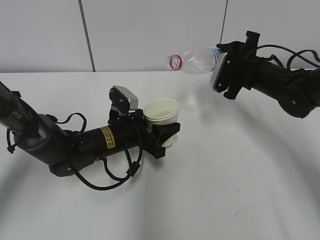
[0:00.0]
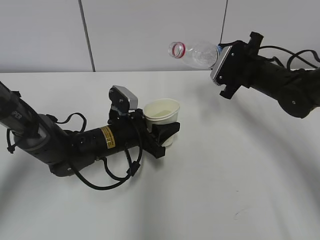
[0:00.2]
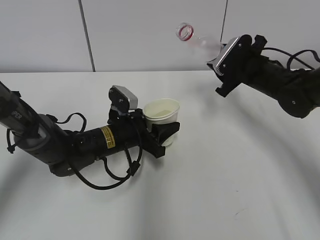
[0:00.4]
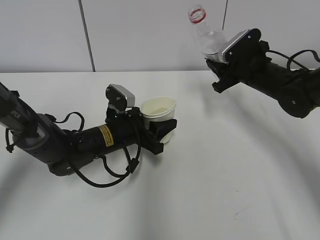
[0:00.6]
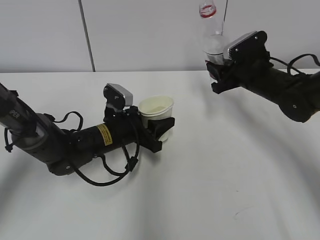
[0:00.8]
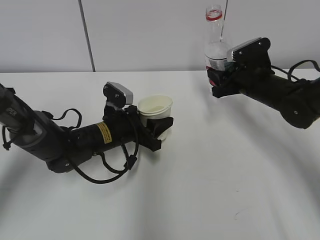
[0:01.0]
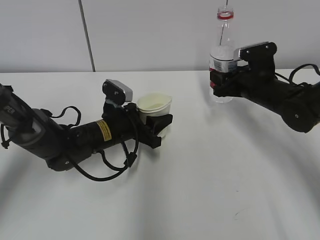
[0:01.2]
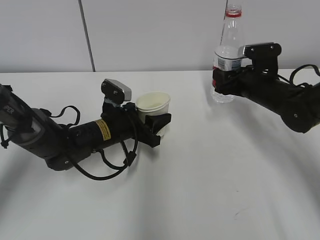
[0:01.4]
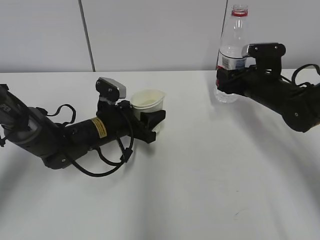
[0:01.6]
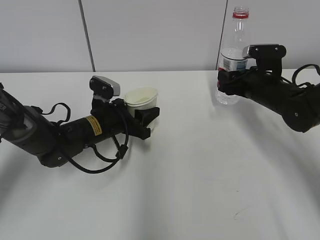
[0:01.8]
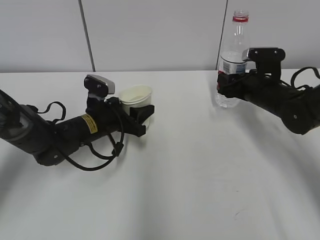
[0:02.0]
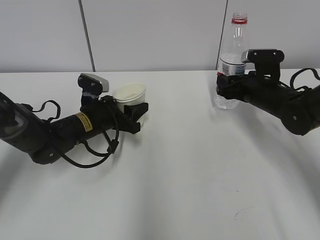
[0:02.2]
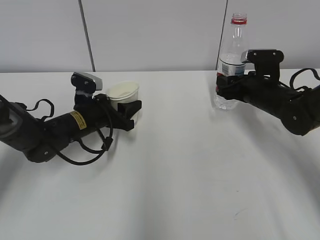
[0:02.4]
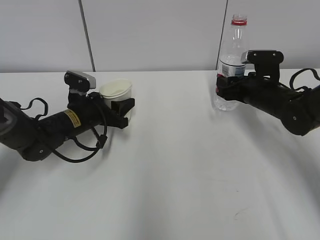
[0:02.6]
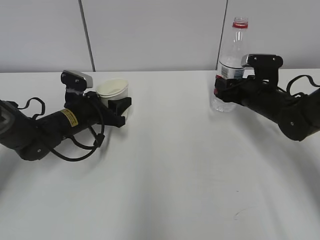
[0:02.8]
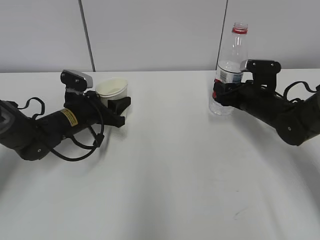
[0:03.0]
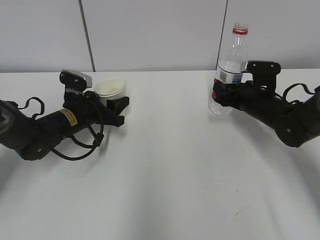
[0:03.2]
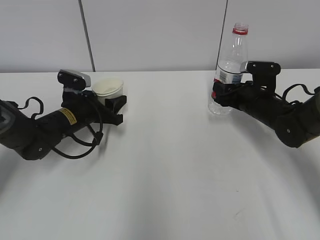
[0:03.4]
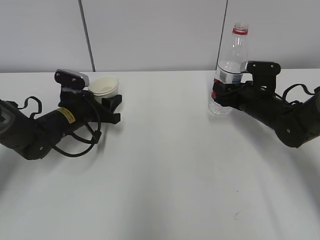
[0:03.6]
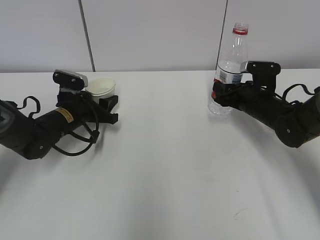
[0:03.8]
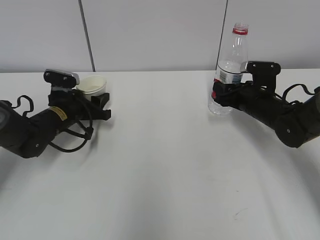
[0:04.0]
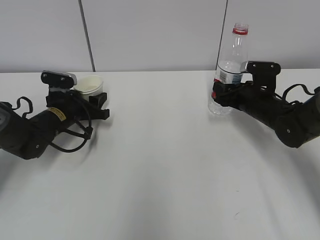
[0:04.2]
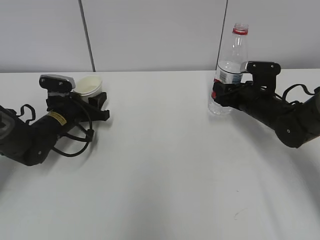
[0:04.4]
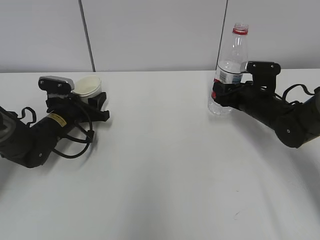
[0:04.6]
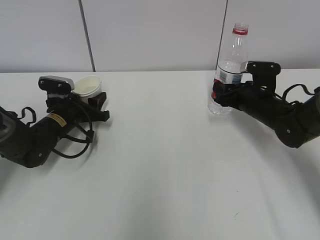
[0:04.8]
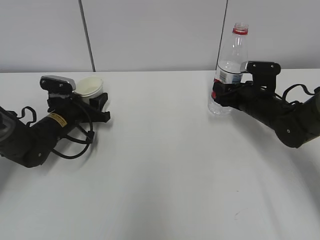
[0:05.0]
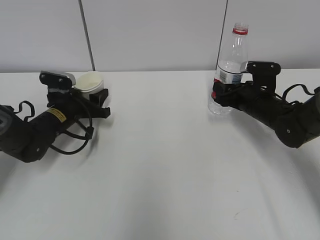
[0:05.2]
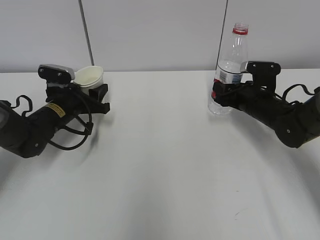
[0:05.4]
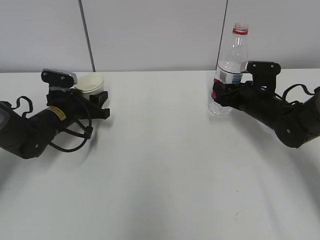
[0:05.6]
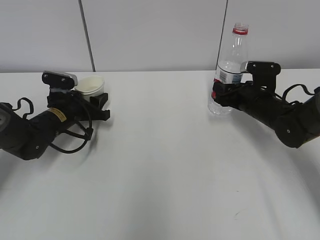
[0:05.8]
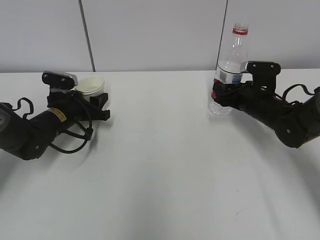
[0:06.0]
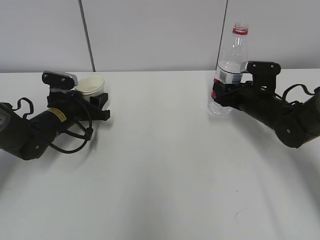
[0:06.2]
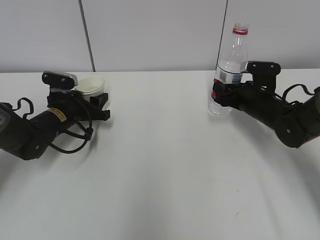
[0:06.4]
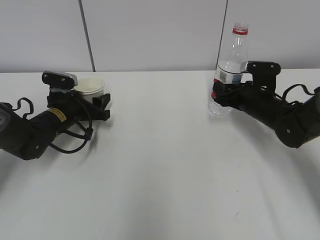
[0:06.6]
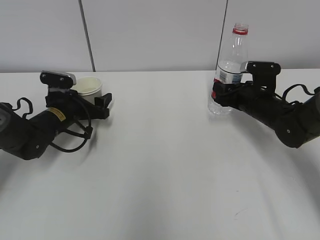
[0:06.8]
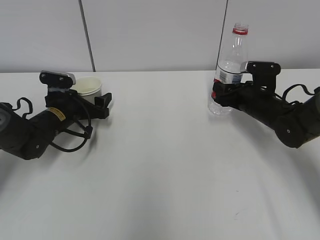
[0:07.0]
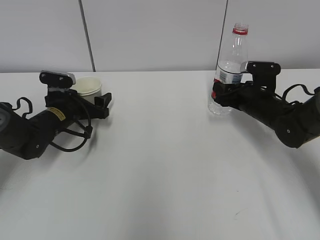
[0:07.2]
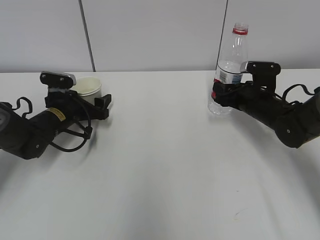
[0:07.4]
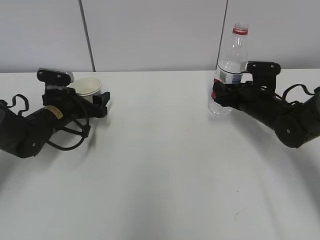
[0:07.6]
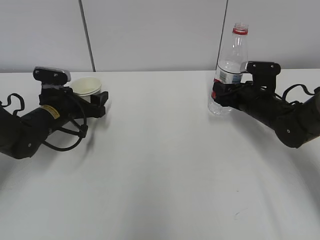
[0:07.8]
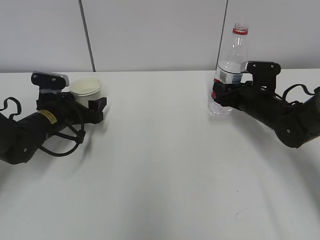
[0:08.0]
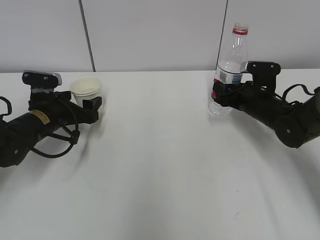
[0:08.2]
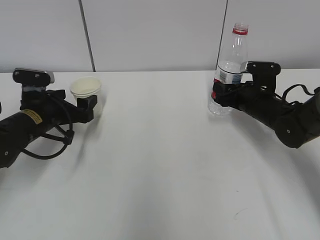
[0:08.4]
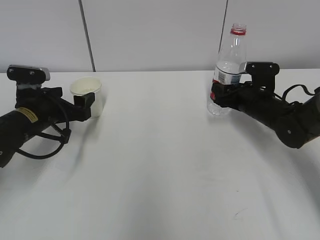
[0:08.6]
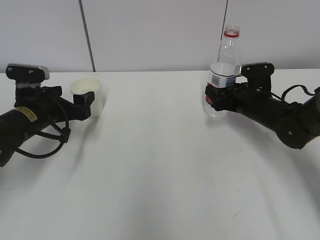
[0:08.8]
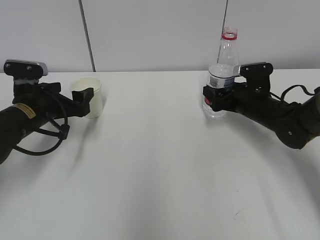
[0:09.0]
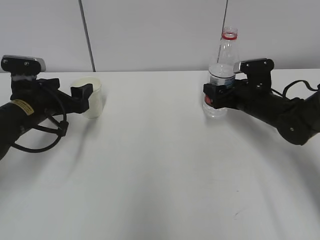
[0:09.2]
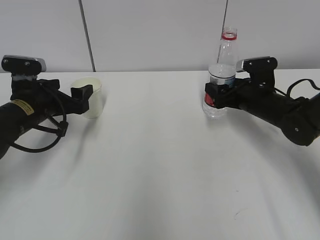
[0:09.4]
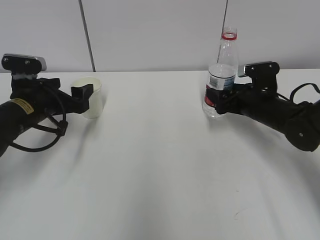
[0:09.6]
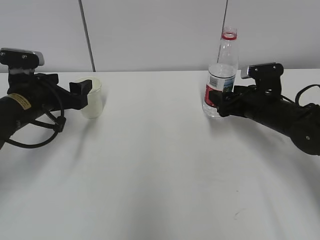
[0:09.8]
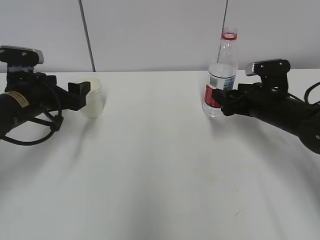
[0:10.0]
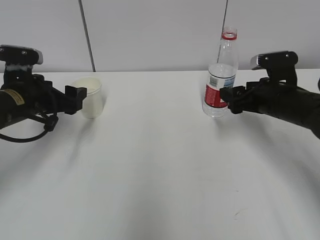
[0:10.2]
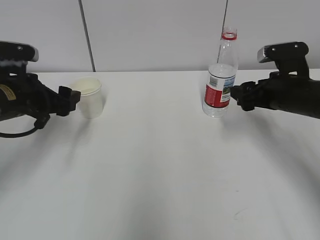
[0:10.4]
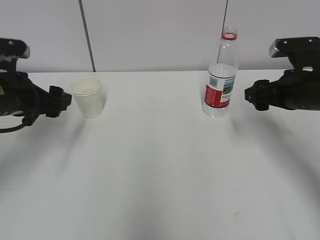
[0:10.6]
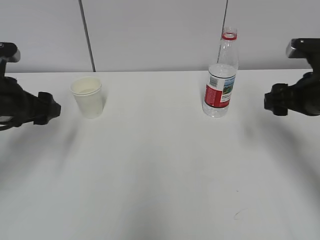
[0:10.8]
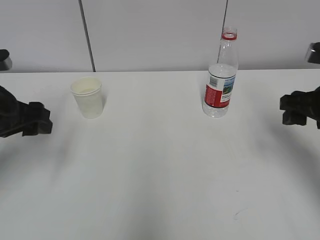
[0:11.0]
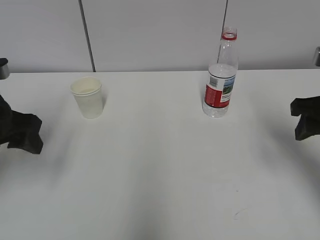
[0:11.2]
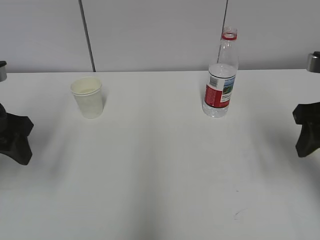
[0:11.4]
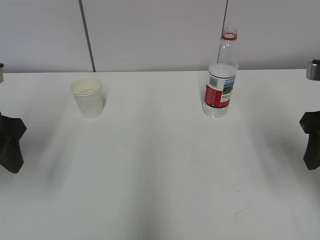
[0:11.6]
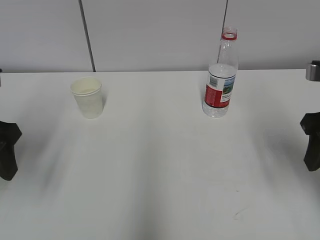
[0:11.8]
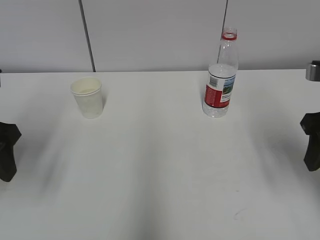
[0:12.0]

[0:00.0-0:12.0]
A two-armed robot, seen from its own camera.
Step, 0:00.0 to 0:02.8: Place the paper cup with the left hand.
0:01.6 to 0:03.0: The left gripper heads to the left, covering some 5 cm.
0:03.0 to 0:06.0: There are only small adjustments of the grippers.
0:06.0 to 0:07.6: The left gripper opens up.
0:07.6 to 0:09.0: The left gripper goes approximately 5 cm backward. Meanwhile the right gripper opens.
0:09.0 to 0:10.4: The right gripper goes about 10 cm upward and backward. Meanwhile the left gripper moves approximately 5 cm.
0:10.4 to 0:12.0: Both grippers move backward and upward, about 15 cm. The right gripper closes up.

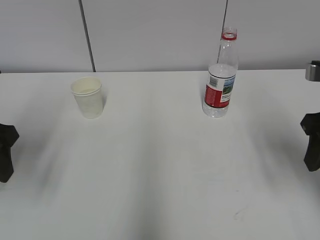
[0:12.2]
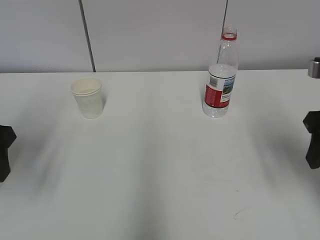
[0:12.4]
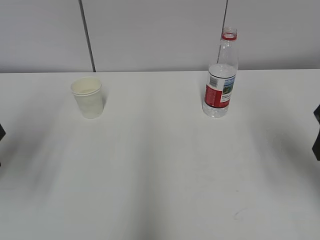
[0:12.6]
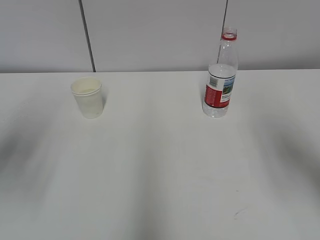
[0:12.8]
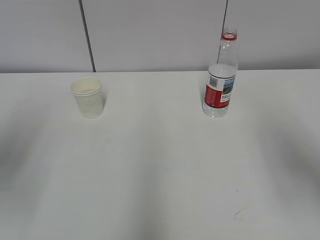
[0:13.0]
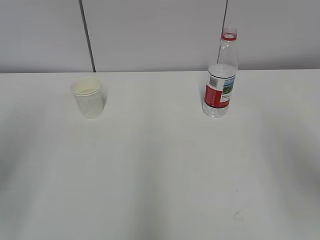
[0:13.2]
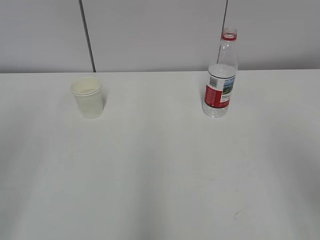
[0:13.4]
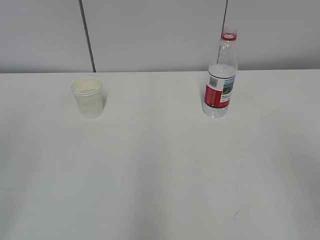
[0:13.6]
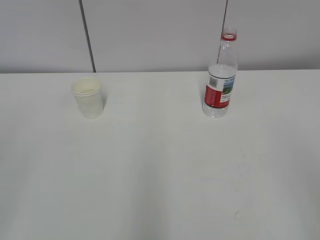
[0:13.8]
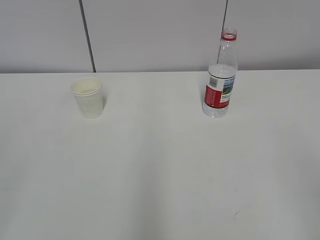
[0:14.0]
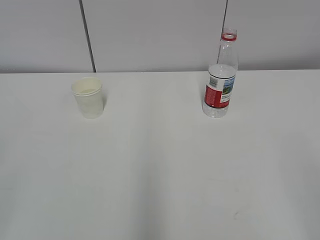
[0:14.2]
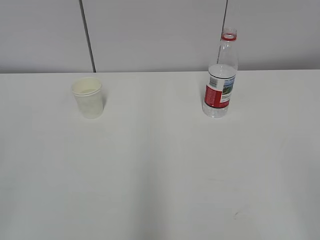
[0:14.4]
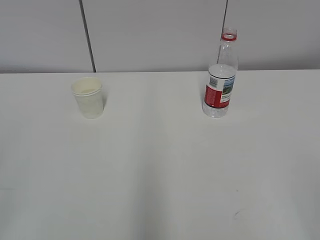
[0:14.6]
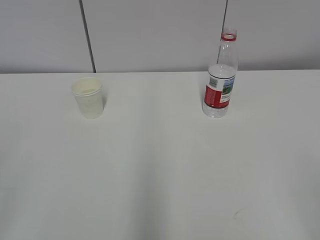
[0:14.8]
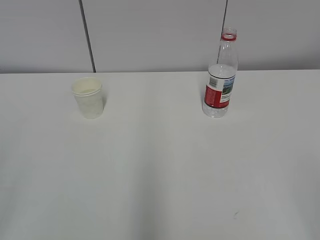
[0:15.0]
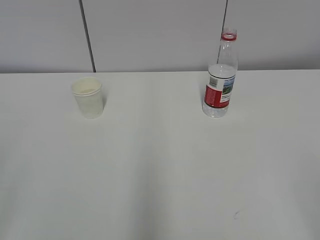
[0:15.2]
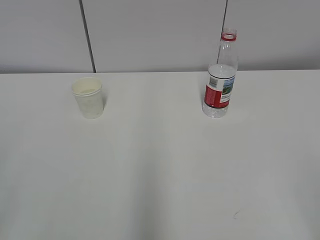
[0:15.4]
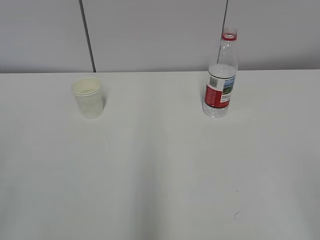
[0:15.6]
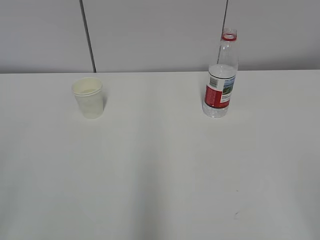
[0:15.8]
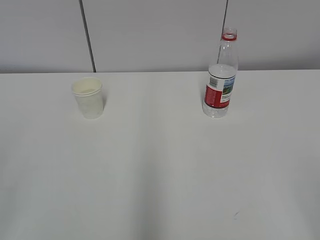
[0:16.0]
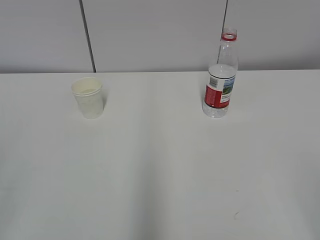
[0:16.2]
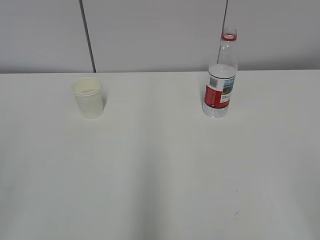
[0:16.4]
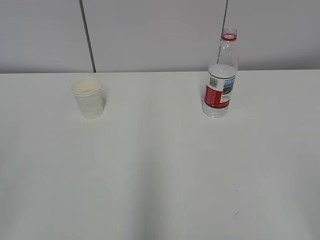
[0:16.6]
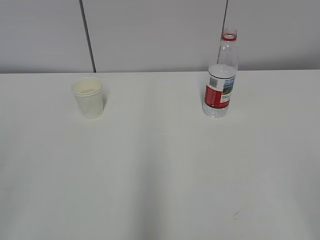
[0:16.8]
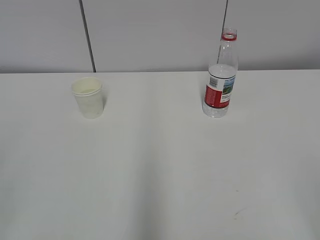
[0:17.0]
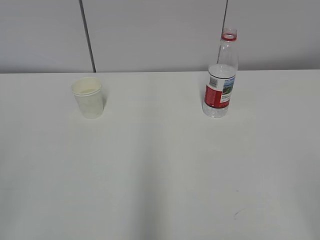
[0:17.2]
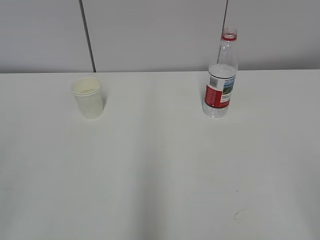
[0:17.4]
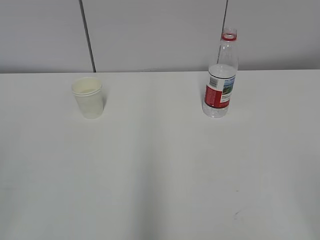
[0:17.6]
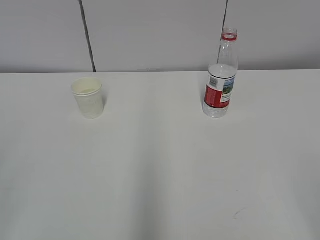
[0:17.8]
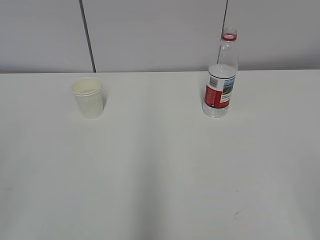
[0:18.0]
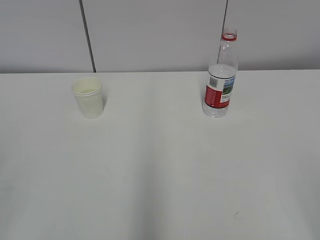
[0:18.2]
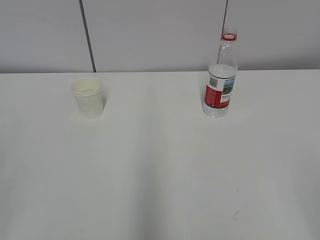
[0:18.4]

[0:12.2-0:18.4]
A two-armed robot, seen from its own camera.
0:12.2 to 0:13.8: Both grippers travel together backward, about 20 cm.
0:15.4 to 0:18.4: Both grippers stay put.
